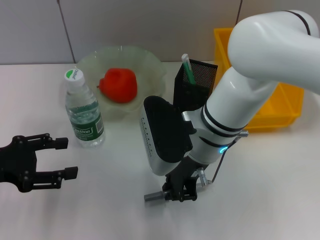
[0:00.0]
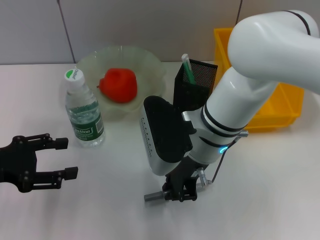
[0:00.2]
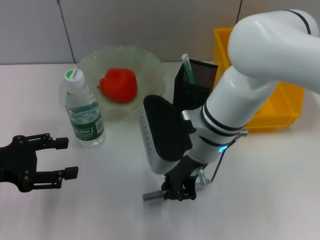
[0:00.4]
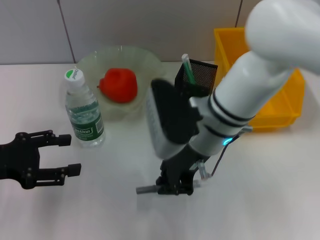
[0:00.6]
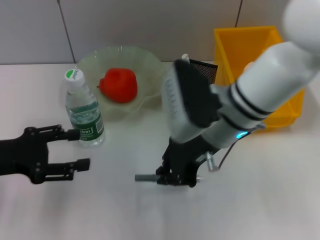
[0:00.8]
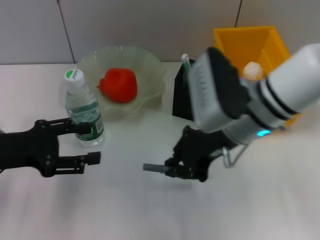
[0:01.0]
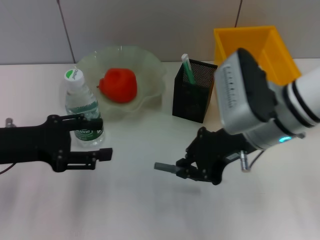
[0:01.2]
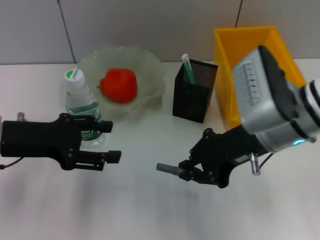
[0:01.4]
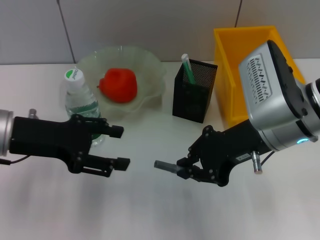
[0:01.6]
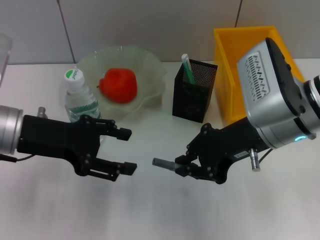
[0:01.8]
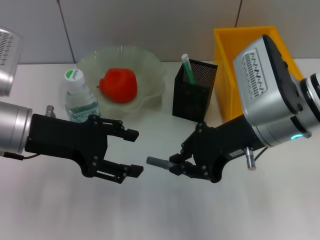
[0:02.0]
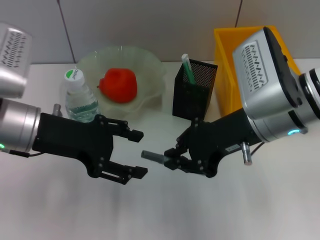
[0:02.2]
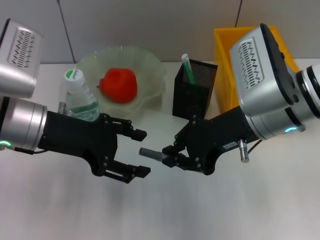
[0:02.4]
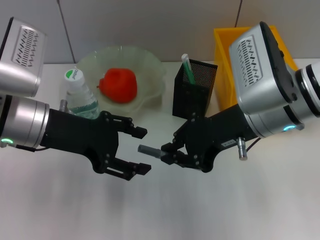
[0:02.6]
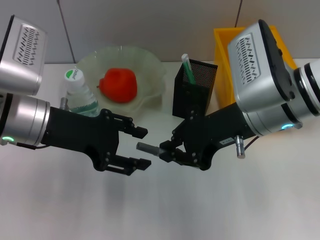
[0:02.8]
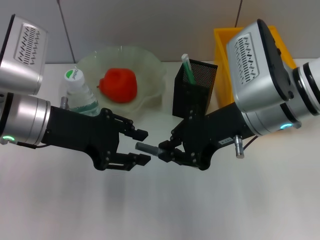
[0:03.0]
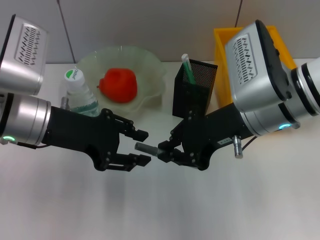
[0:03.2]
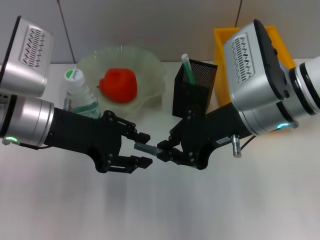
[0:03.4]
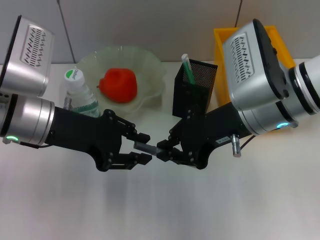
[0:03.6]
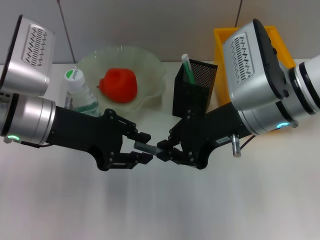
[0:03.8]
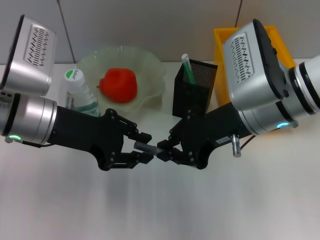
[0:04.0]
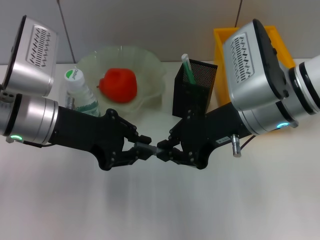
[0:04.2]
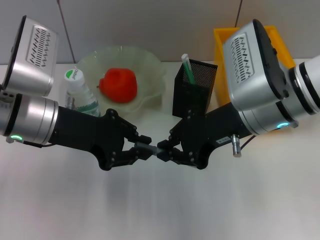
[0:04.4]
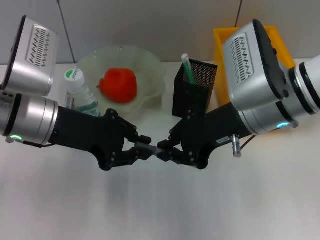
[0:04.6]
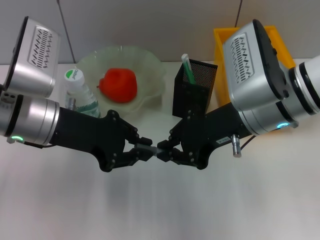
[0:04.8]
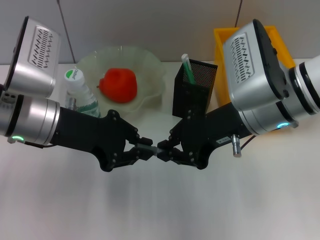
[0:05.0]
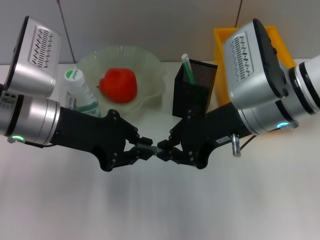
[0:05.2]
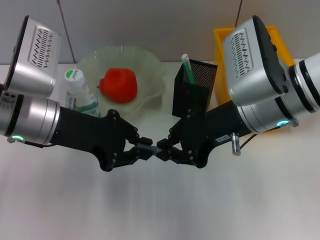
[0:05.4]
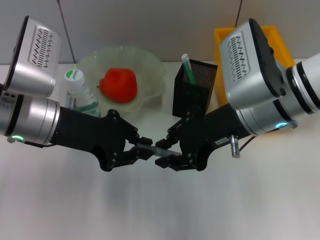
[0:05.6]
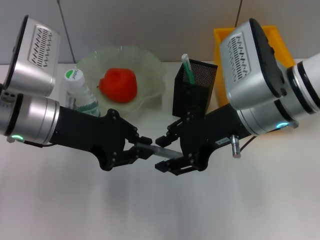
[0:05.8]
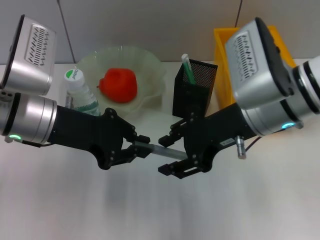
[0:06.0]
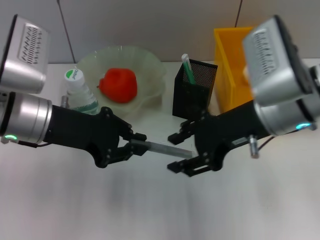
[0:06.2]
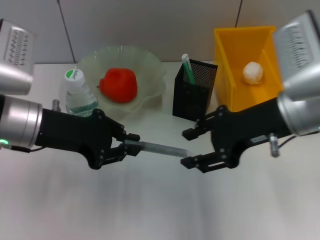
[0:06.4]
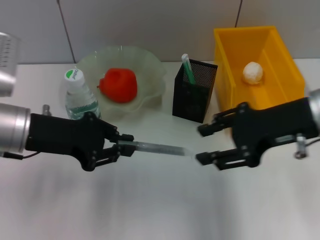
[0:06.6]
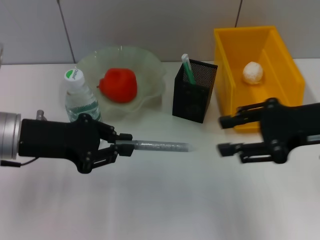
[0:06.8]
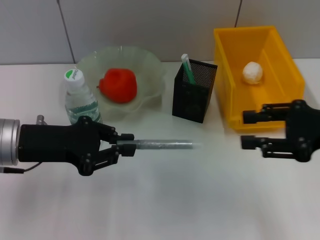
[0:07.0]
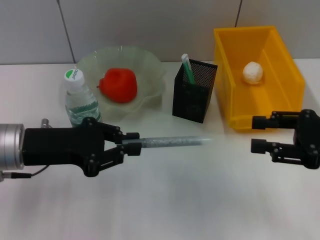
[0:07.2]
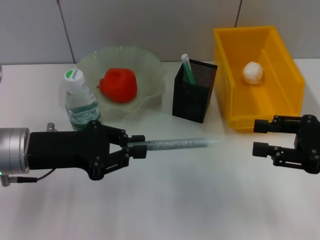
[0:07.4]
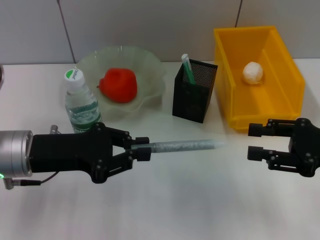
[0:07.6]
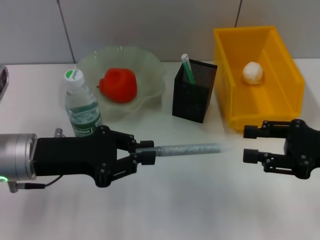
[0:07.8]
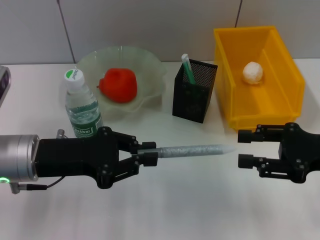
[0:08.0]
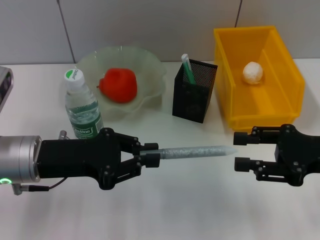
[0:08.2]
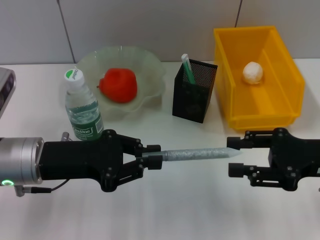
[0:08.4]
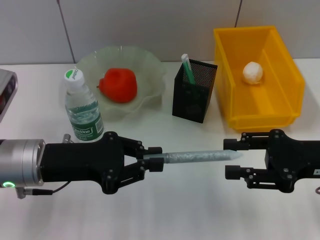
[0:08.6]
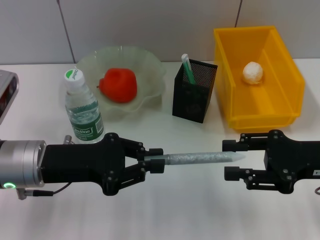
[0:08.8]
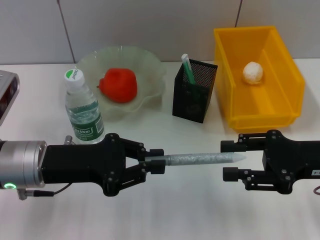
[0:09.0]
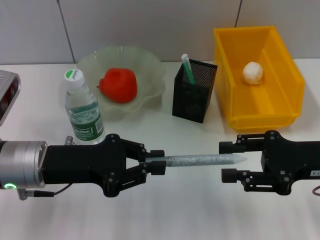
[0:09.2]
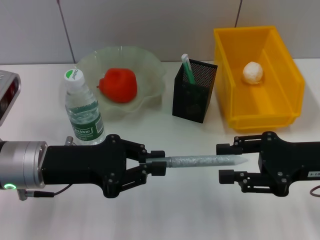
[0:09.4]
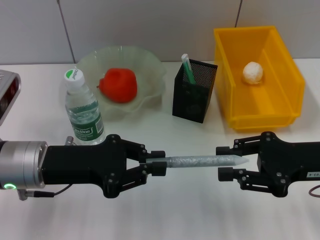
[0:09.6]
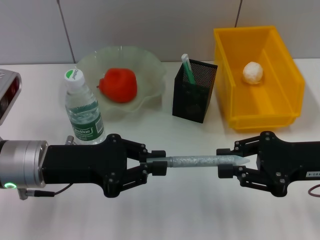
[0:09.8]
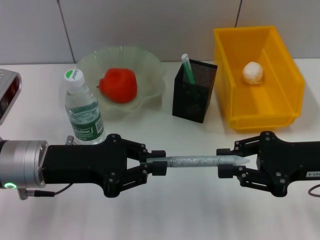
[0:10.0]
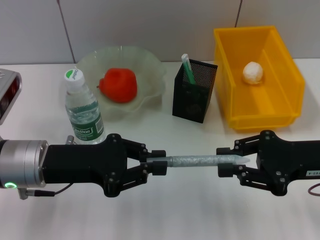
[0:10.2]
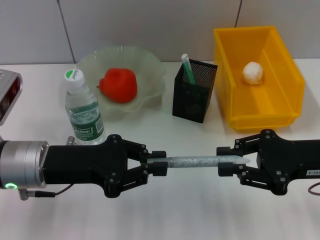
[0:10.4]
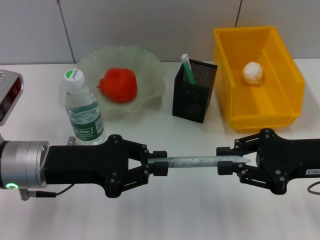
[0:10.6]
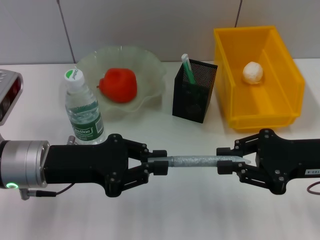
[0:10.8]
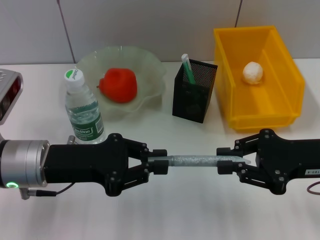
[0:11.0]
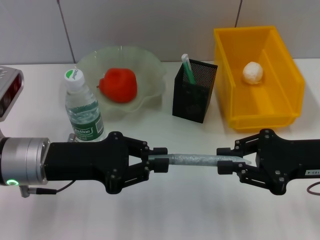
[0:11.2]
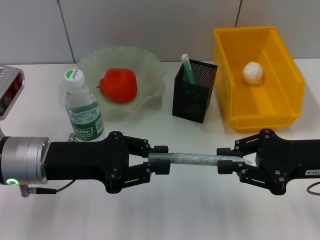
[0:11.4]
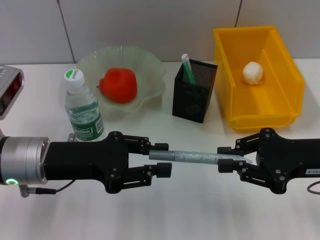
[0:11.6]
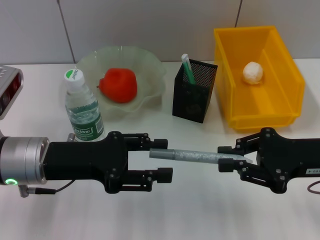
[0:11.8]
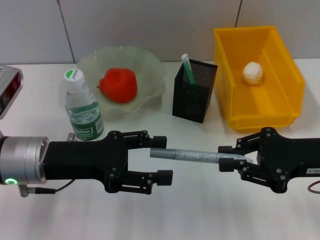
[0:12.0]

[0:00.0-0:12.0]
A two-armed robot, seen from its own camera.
Step, 0:00.0 to 0:05.6: Pass the gray glue from the right hand to the left hand.
Step, 0:05.8 to 0:11.8: Pass the gray glue from the left hand to the right hand.
0:00.0 to 0:01.6: Both grippers move to the right, approximately 10 cm.
0:01.6 to 0:03.0: The left gripper moves about 5 cm.
0:03.0 to 0:04.4: The left gripper closes.
0:04.4 to 0:06.0: The right gripper opens its fingers.
0:06.0 to 0:07.6: The left gripper ends up roughly 5 cm from where it was. The right gripper heads to the right and downward, covering about 20 cm.
0:07.6 to 0:09.0: The grippers move only a little.
0:09.0 to 0:10.4: The right gripper closes up.
0:10.4 to 0:12.0: The left gripper opens up.

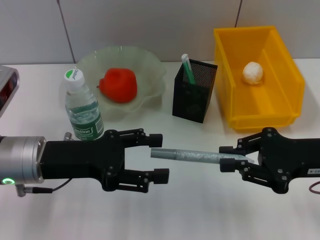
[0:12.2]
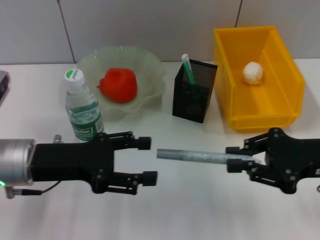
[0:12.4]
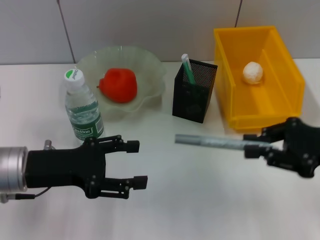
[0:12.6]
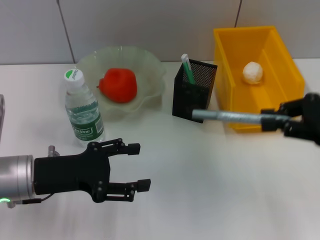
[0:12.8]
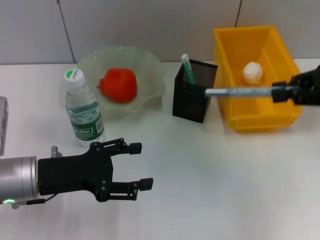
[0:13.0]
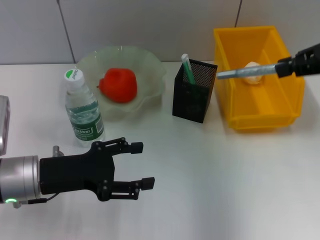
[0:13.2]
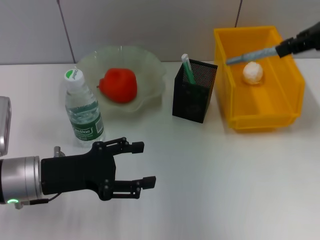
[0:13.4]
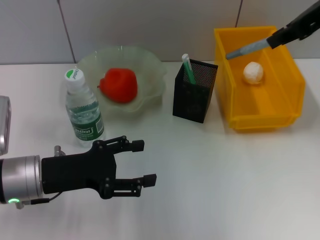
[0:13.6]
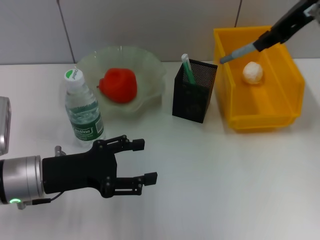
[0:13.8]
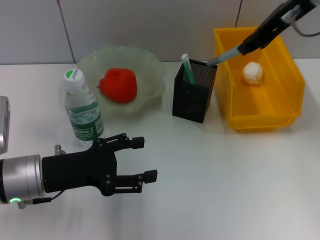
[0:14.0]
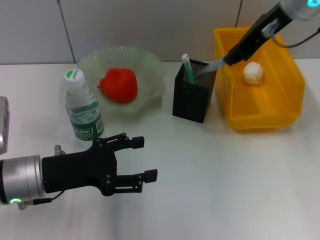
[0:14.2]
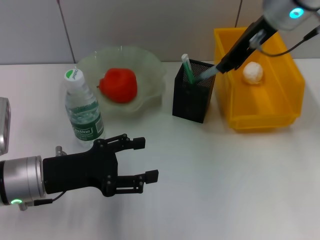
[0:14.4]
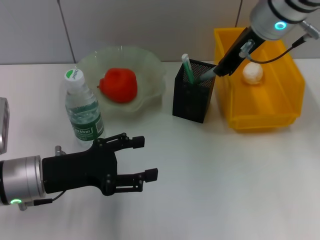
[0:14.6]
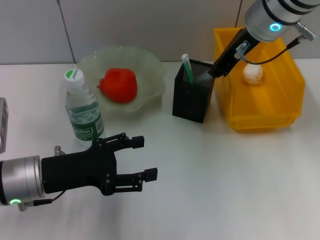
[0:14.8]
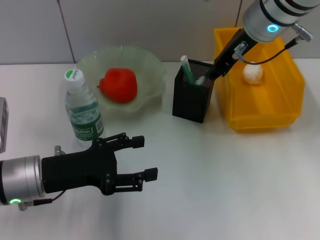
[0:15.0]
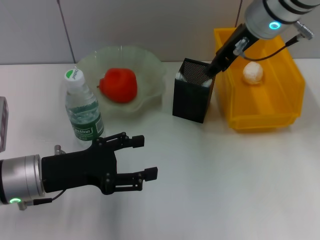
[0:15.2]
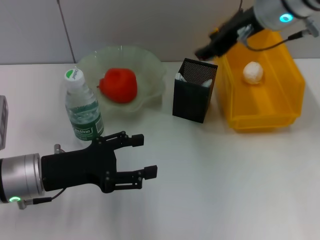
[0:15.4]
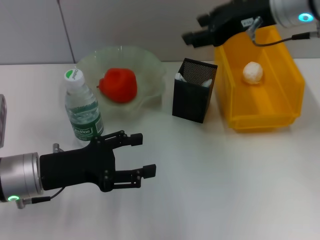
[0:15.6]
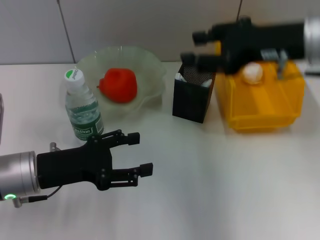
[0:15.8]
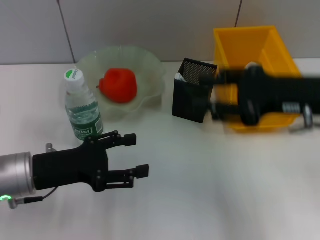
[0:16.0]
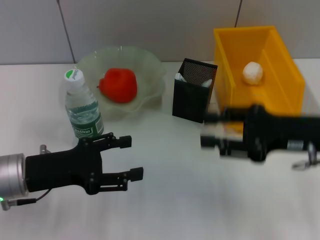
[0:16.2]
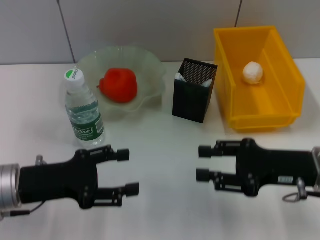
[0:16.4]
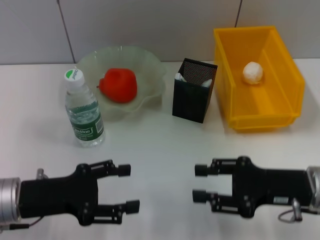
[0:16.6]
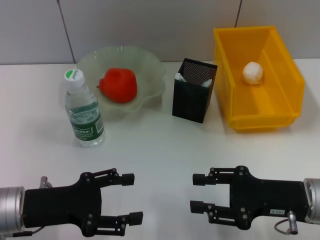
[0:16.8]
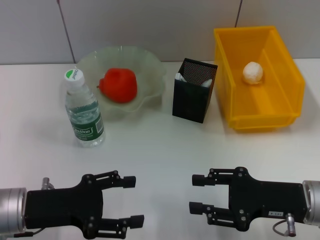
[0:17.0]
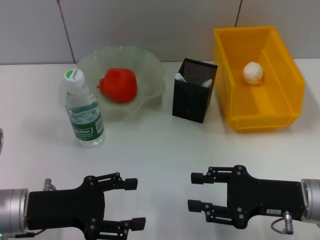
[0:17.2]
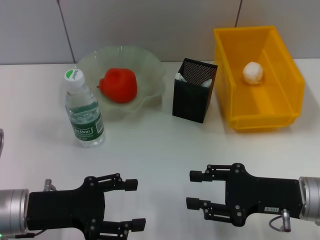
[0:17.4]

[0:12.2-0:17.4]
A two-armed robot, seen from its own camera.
Step, 0:12.2 to 0:15.0: Place the gray glue into the pen holder with the right hand.
0:12.2 to 0:14.0: The right gripper travels upward, forward and to the left by some 25 cm.
0:14.0 to 0:15.6: The right gripper opens.
0:15.6 to 0:17.4: The right gripper goes roughly 25 cm downward and backward.

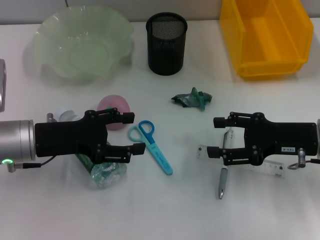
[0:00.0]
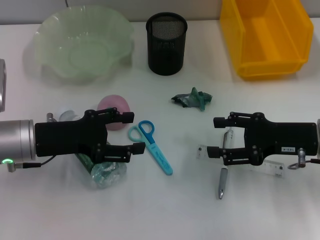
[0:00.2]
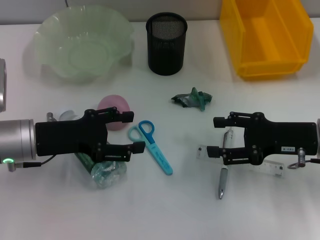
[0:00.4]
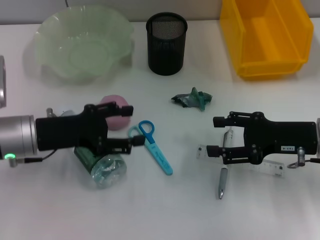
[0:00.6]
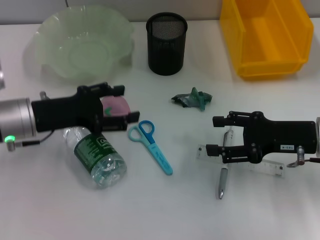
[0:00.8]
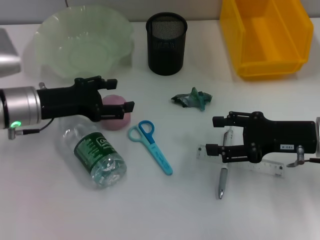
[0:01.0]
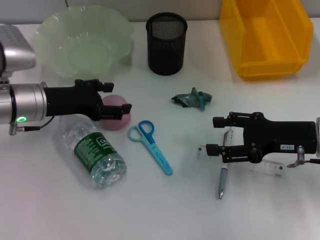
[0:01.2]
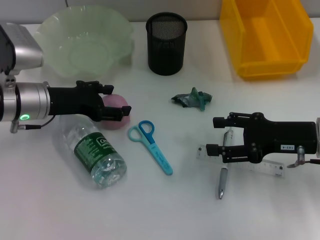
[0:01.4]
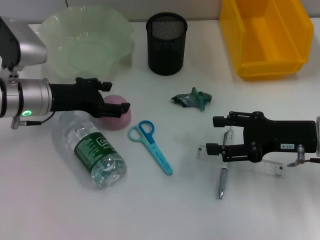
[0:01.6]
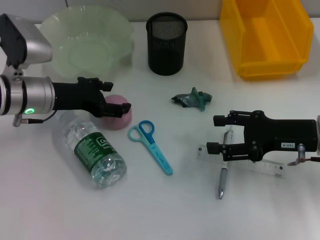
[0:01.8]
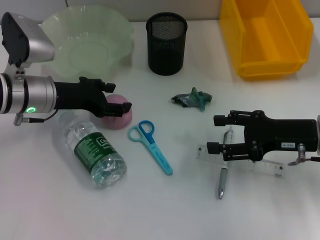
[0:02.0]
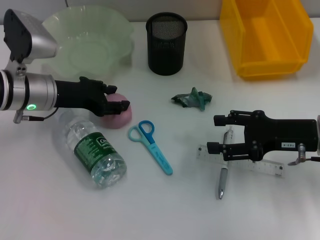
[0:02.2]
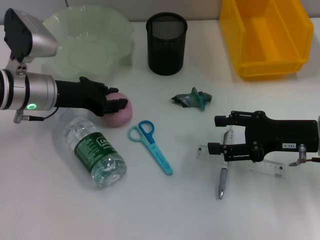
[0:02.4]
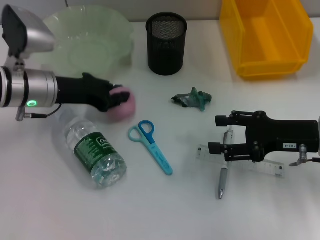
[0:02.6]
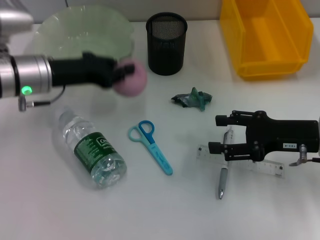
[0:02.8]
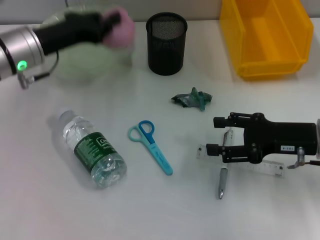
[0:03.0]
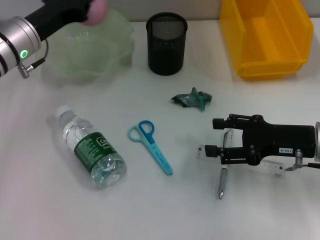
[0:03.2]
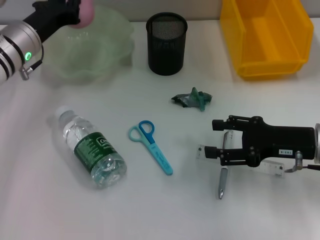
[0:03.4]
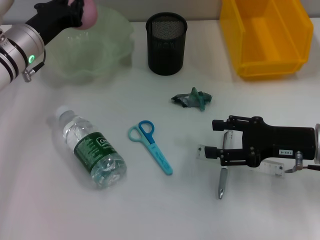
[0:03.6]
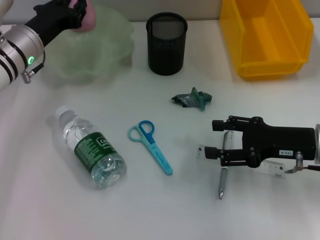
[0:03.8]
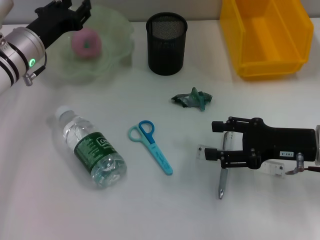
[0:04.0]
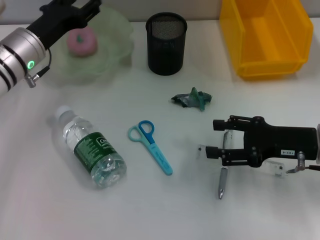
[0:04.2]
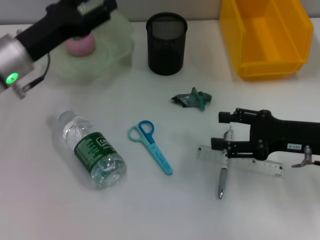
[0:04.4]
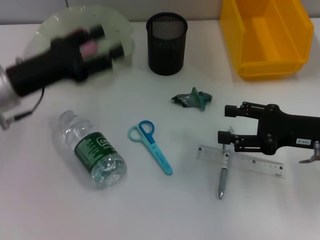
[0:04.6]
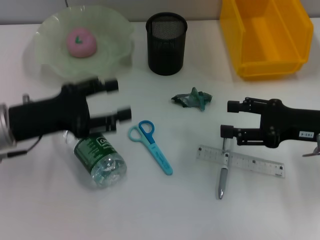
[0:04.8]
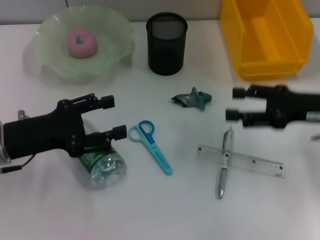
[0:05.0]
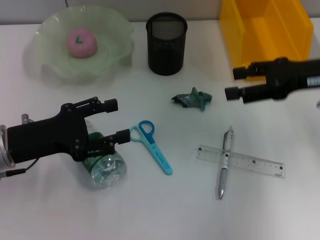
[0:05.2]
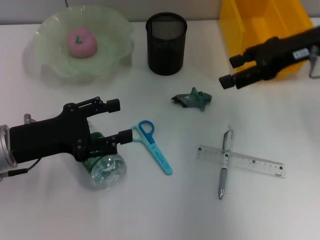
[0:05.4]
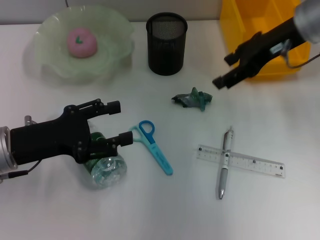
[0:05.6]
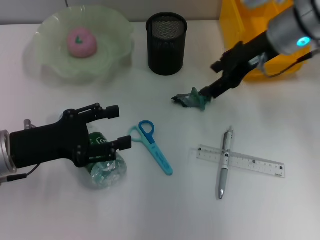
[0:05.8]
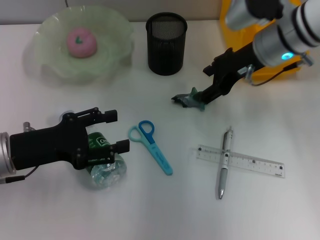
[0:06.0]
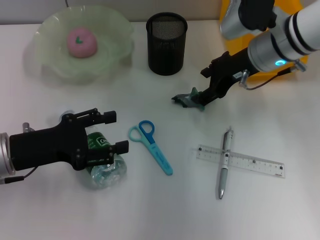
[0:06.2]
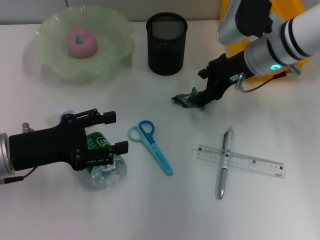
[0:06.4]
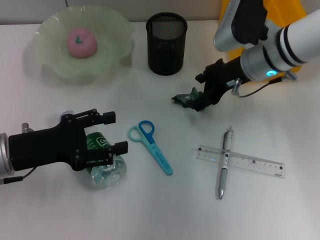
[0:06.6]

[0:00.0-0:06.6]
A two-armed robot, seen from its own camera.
Step, 0:00.0 to 0:02.4: Grab the peach with the left hand.
Step, 0:02.6 to 0:04.4: Place the peach into the fruit bowl with the left hand.
0:00.0 to 0:01.6: The left gripper moves forward, about 5 cm.
0:01.6 to 0:03.2: The left gripper moves about 5 cm, and closes.
0:03.2 to 0:05.0: The left gripper is displaced backward by roughly 15 cm, and opens, while the right gripper shifts by some 5 cm.
0:05.0 to 0:06.6: The right gripper goes approximately 15 cm to the left and forward.
